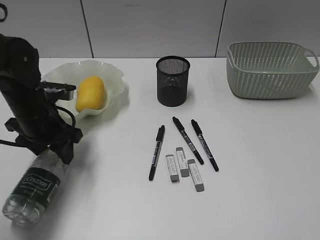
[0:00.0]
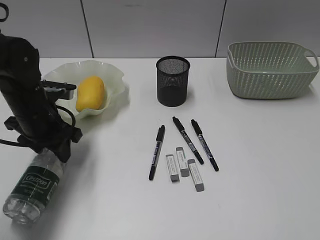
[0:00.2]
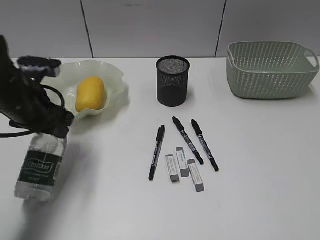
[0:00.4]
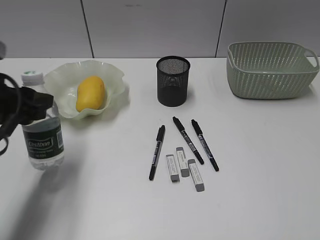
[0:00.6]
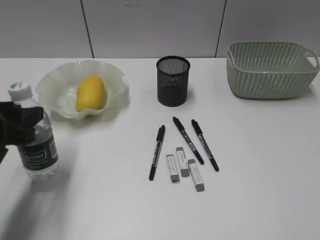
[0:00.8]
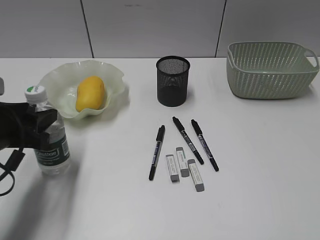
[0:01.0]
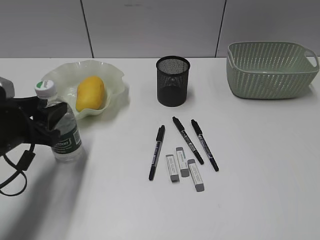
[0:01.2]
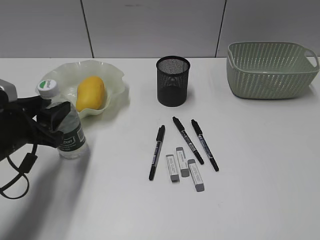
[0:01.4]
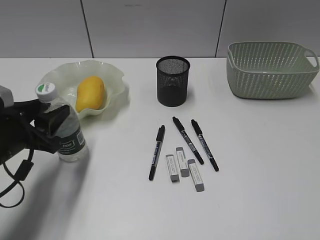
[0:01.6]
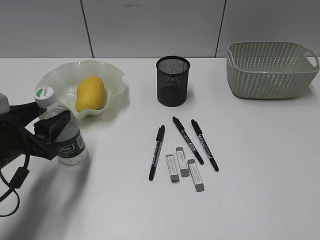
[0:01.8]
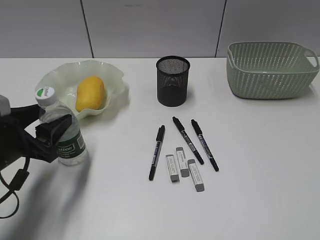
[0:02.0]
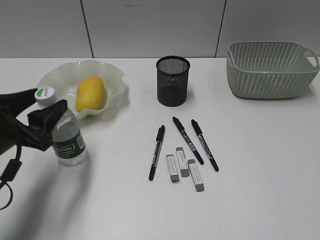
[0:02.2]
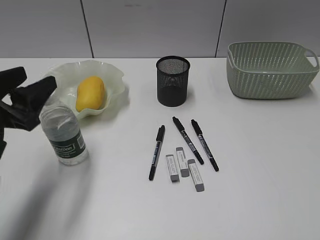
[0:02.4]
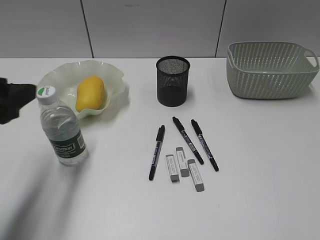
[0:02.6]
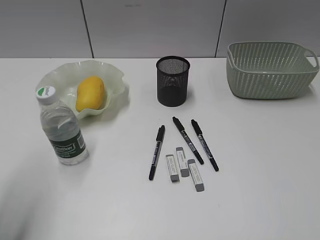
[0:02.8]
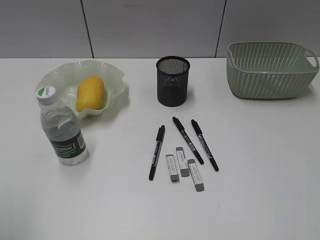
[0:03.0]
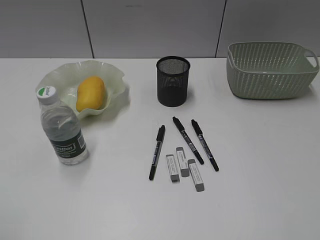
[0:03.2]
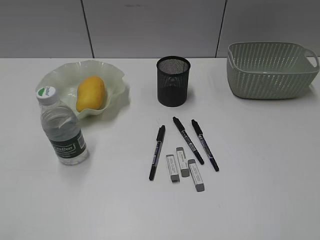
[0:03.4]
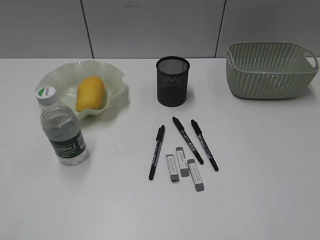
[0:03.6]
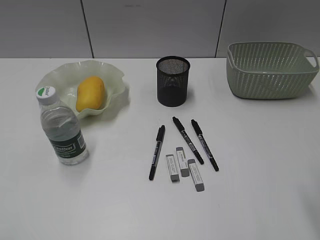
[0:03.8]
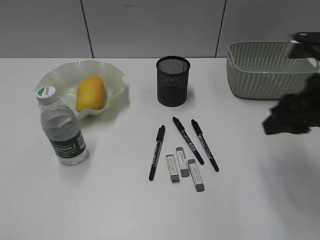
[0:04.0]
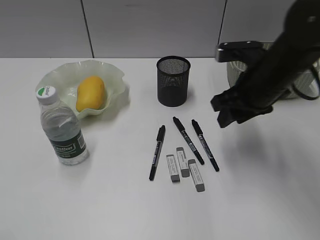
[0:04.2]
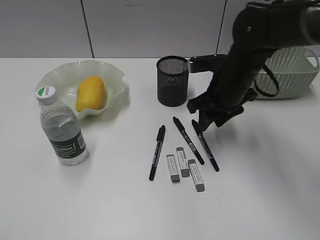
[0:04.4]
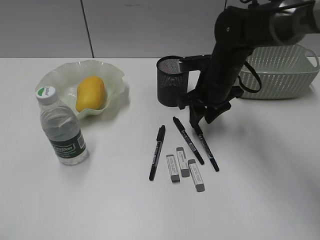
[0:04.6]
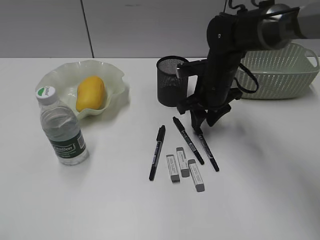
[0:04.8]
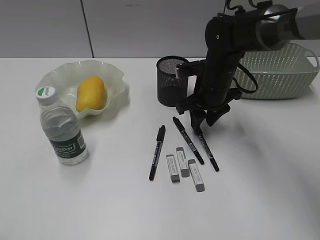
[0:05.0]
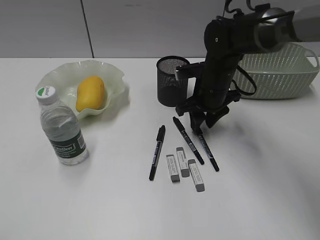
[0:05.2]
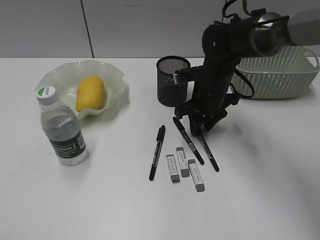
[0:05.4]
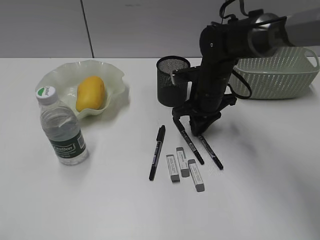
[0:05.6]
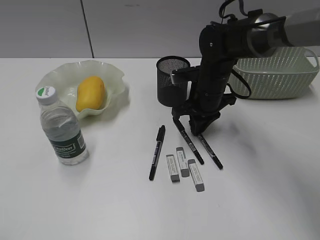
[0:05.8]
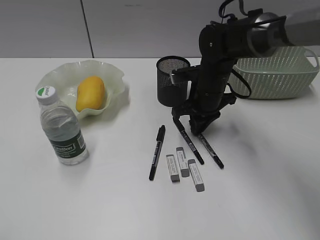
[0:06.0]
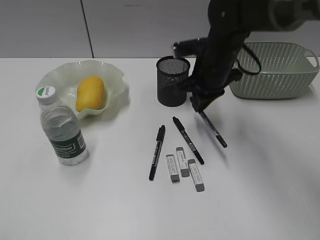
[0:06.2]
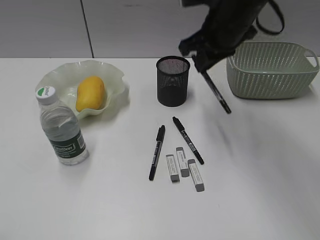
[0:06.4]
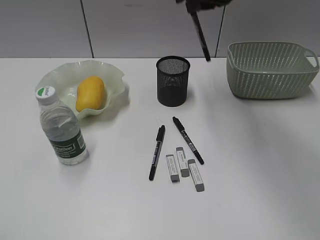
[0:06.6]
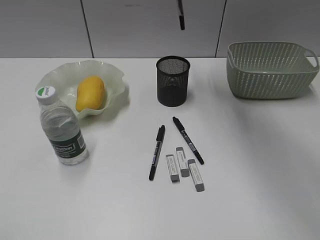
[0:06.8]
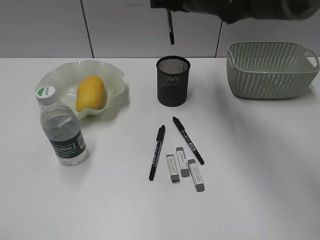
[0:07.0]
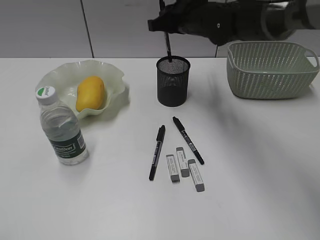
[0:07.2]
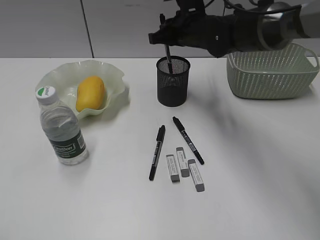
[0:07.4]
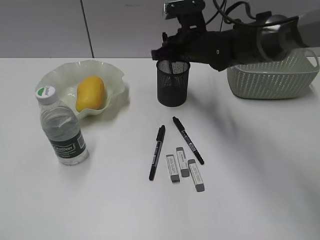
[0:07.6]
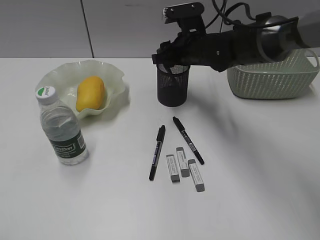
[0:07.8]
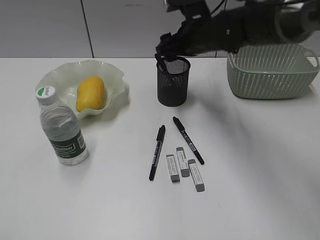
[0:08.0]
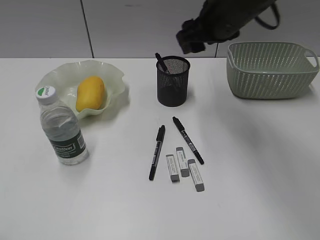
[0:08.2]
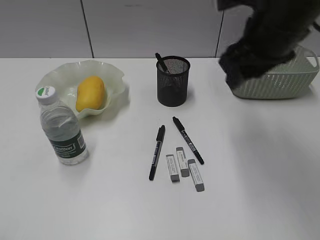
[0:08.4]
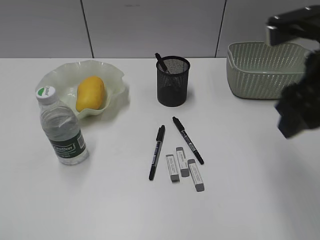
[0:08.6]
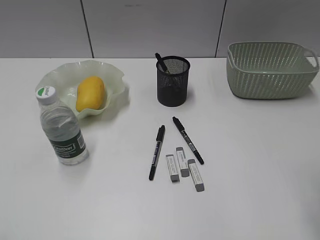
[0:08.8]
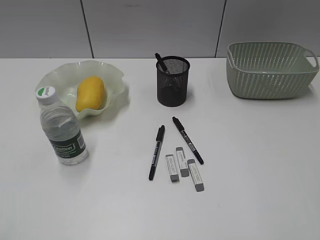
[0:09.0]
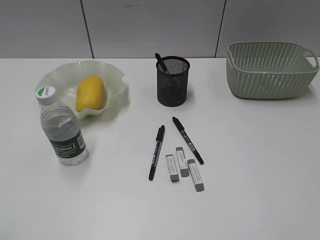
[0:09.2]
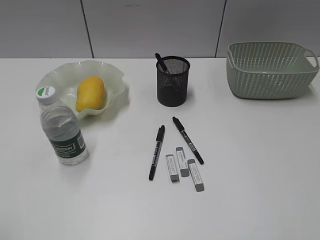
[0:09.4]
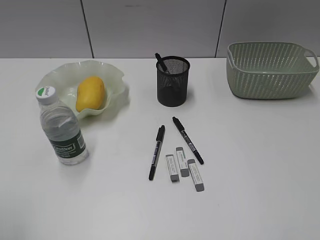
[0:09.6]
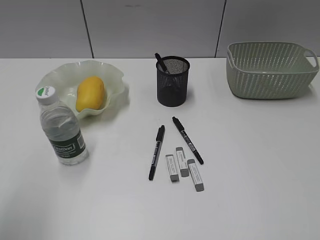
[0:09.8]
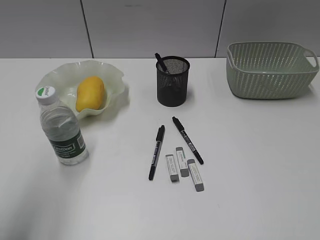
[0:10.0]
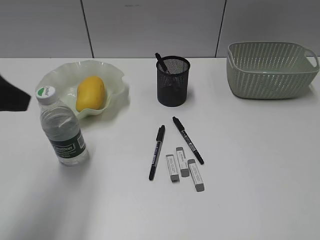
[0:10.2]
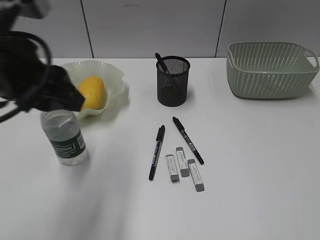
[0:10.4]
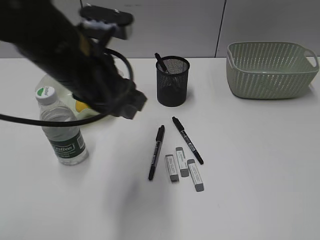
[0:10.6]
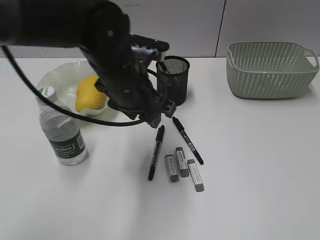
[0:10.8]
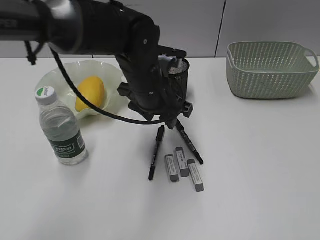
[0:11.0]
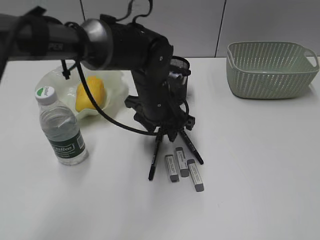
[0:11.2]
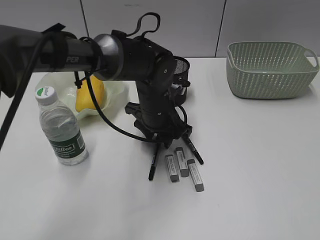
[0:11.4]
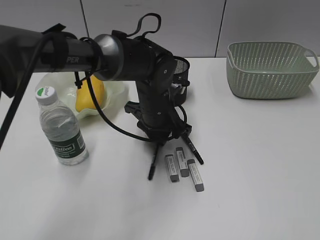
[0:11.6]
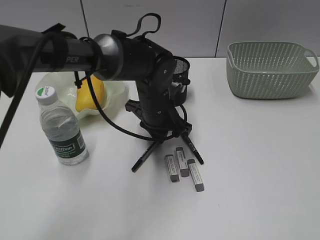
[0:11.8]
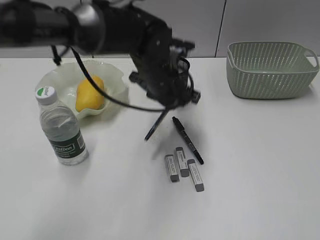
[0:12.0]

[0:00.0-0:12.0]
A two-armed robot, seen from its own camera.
Step, 0:00.2 to 0:02.2: Stand the bottle with left gripper.
Step, 0:02.4 to 0:05.8: Grasp the black pen with right gripper.
Step, 0:06.0 to 0:08.0: Place the black pen in pen holder with right gripper.
Step, 0:08.2 to 0:11.6: Grasp the black pen with left gripper.
0:00.0 to 0:01.6: The left gripper travels backward by some 10 cm.
0:01.6 to 0:03.0: The left gripper shifts approximately 20 cm upward, backward and to the left.
0:03.0 to 0:04.4: The right gripper is displaced forward and to the left by some 40 cm. Meanwhile the left gripper travels backward by about 10 cm.
0:04.4 to 0:06.0: The right gripper ends up about 5 cm from where it was, and closes up.
0:06.0 to 0:07.6: The right gripper goes upward and returns, approximately 20 cm each way.
0:07.6 to 0:09.0: The right gripper is displaced backward and to the right by some 40 cm, and opens up.
0:09.0 to 0:10.4: The right gripper heads backward and to the right, covering approximately 10 cm. Meanwhile the left gripper moves forward and to the right, some 25 cm.
0:10.4 to 0:12.0: The left gripper travels to the right, forward and downward by approximately 25 cm, and closes up.

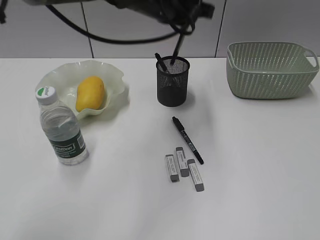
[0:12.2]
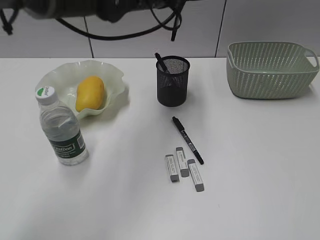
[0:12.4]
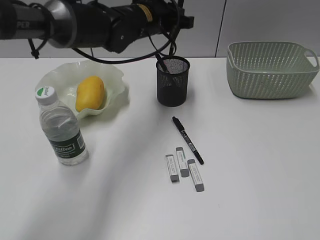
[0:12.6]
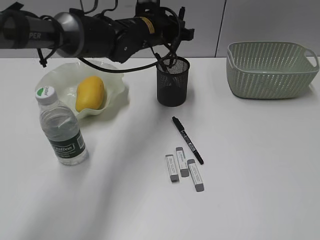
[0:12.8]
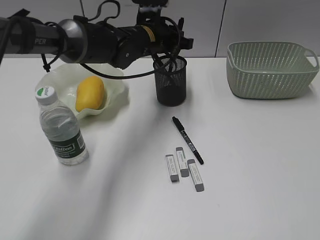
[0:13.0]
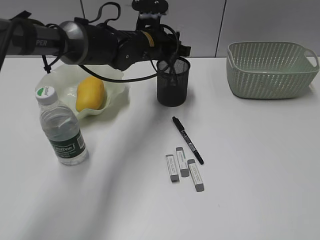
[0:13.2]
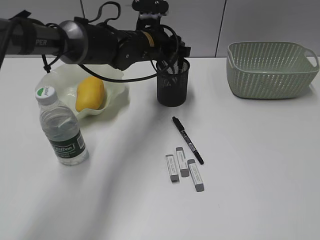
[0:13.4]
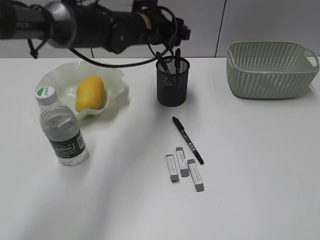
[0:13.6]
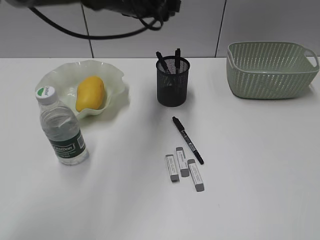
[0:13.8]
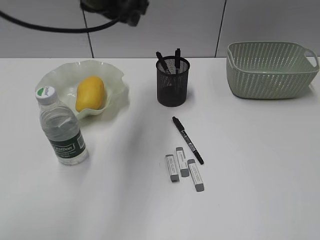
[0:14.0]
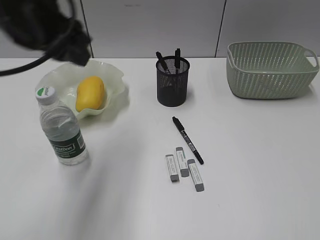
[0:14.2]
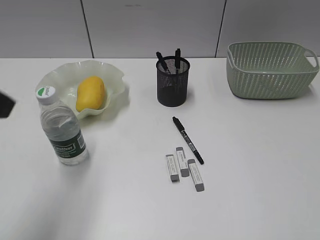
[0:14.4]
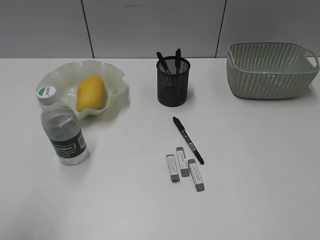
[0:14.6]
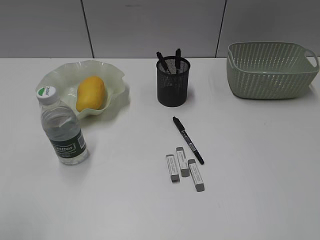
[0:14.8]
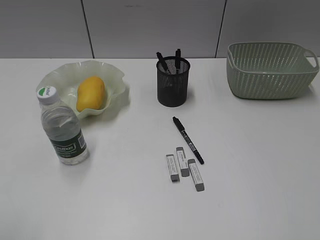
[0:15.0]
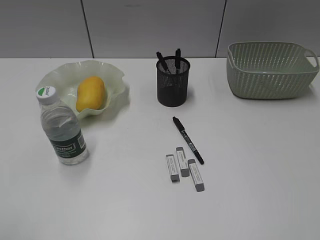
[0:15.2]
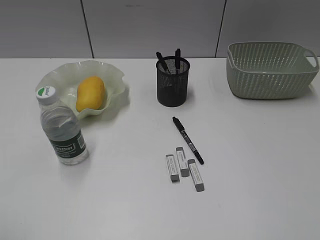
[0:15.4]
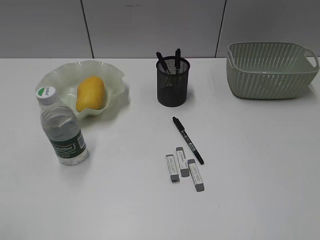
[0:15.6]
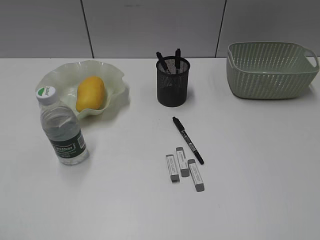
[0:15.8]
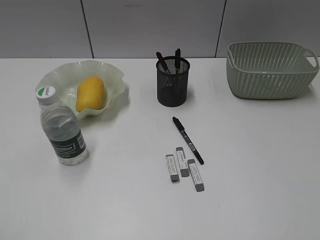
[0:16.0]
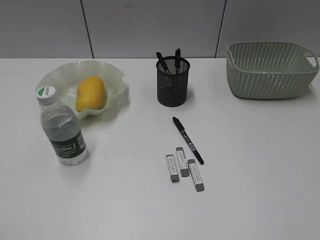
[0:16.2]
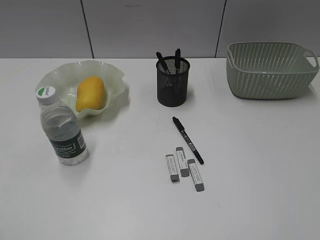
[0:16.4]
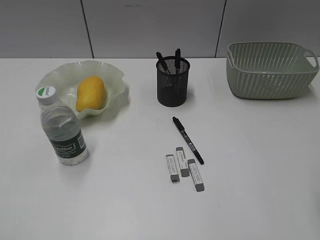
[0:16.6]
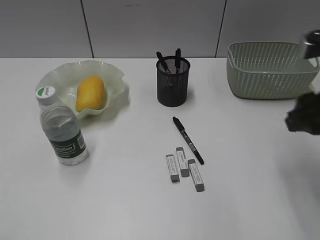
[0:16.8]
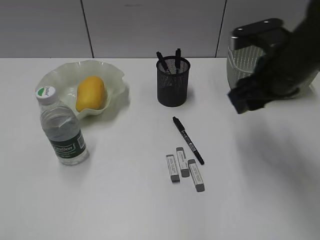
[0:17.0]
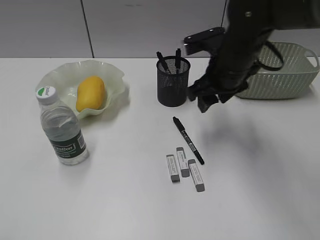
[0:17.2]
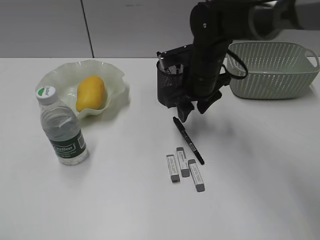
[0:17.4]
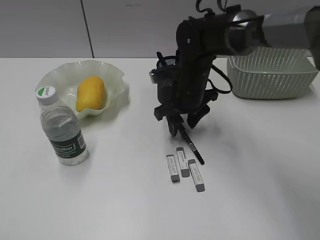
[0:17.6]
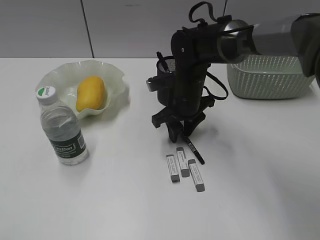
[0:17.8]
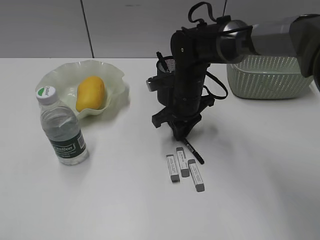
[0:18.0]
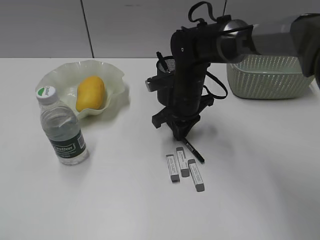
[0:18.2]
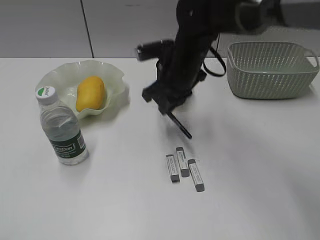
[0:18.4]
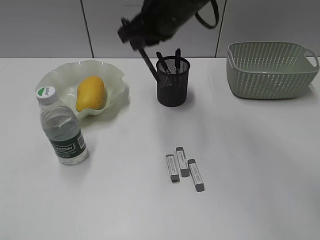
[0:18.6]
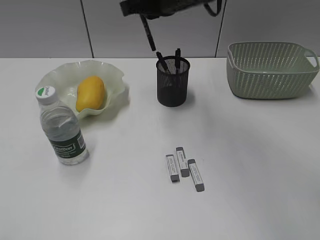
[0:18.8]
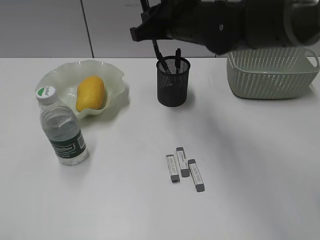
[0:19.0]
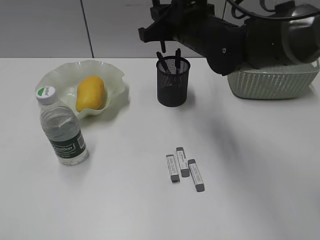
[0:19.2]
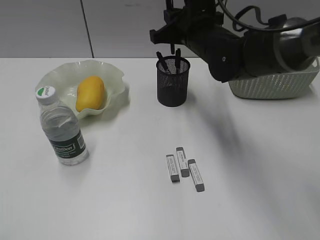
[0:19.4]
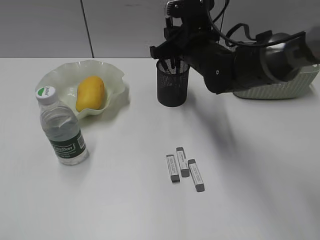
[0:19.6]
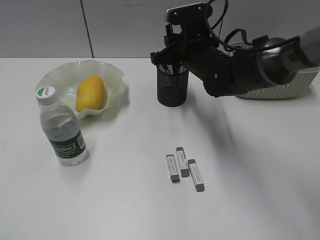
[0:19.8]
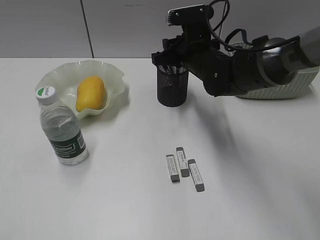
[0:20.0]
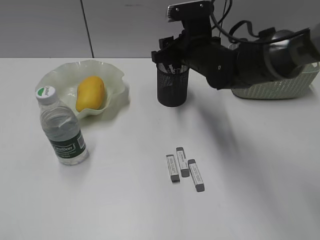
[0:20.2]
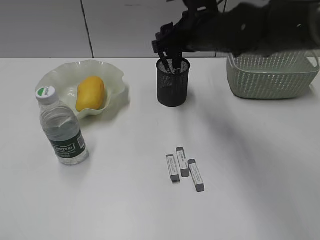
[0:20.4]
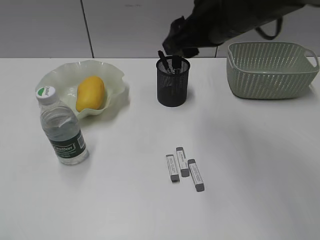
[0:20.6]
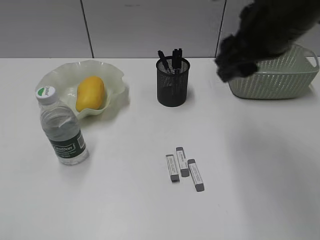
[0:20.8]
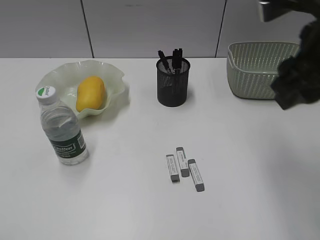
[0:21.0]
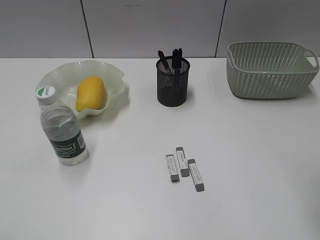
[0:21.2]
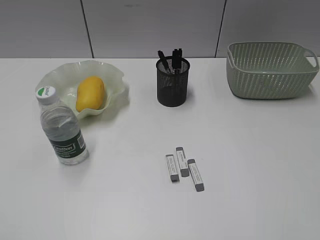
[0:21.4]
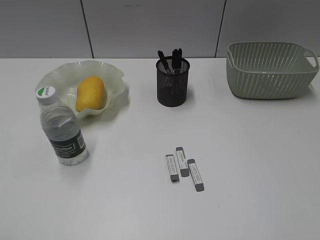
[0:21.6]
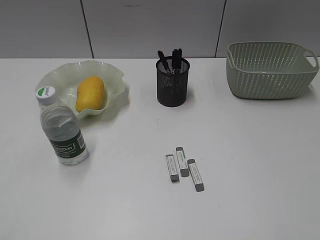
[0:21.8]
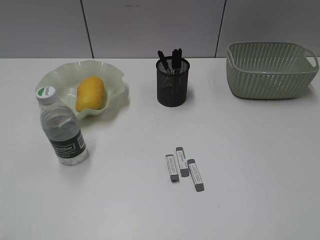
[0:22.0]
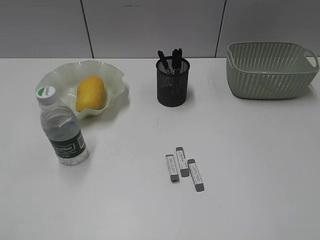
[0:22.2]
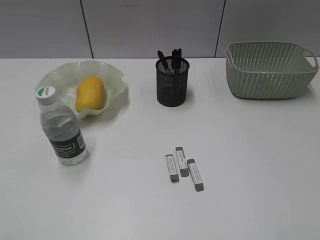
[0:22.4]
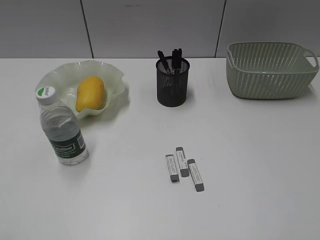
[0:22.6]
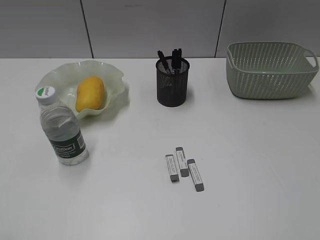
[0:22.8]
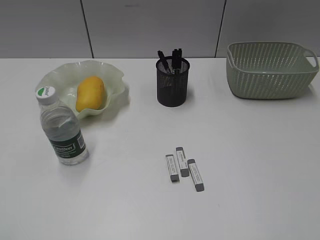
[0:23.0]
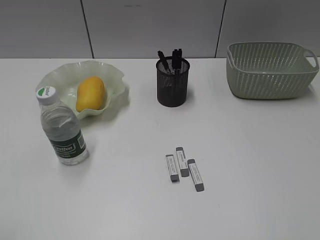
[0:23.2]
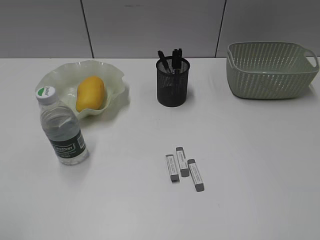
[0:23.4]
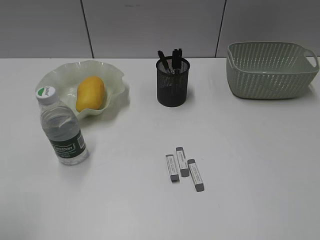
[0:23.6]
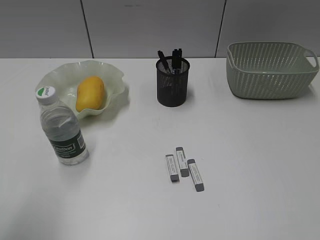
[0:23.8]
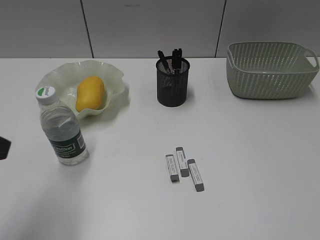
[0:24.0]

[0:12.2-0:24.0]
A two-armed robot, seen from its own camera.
Step, 0:12.2 to 0:13.6: Place the black pen in pen holder with left gripper.
Step, 0:13.8 to 0:18.0: Grasp the black pen with right gripper.
Step, 0:18.2 to 0:20.2: Place the black pen in pen holder with right gripper.
0:12.2 to 0:13.6: The left gripper goes approximately 10 cm downward and forward, and opens up.
0:13.6 to 0:15.2: The left gripper is displaced backward and to the left by approximately 50 cm, and closes.
0:16.6 to 0:18.2: The right gripper shifts some 40 cm forward, to the left and downward, and closes.
0:18.2 to 0:19.6: The right gripper travels upward by approximately 5 cm.
0:19.6 to 0:21.0: The right gripper goes about 25 cm backward, upward and to the right, and opens up.
0:21.0 to 0:22.6: The right gripper travels backward and to the right by approximately 25 cm.
0:22.6 to 0:24.0: The left gripper shifts approximately 15 cm forward and to the right.
